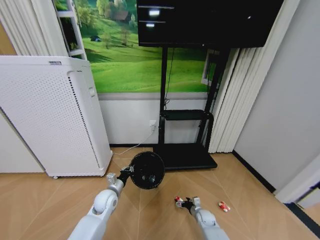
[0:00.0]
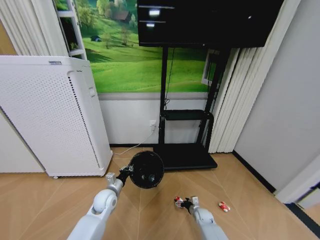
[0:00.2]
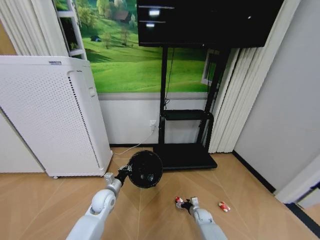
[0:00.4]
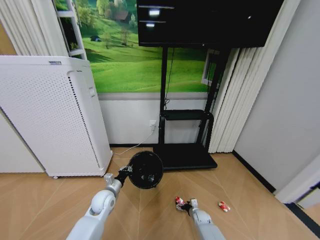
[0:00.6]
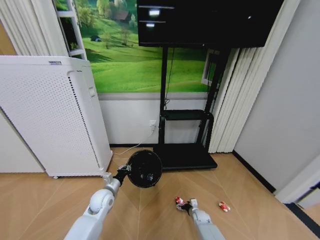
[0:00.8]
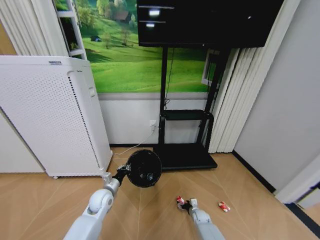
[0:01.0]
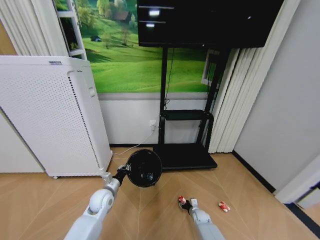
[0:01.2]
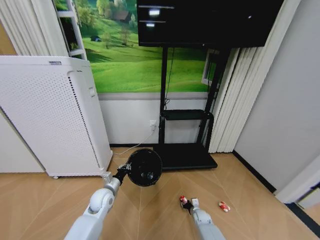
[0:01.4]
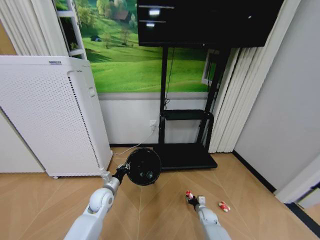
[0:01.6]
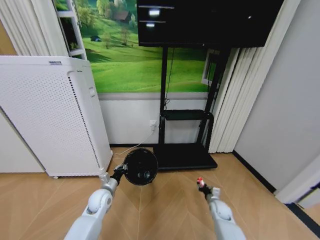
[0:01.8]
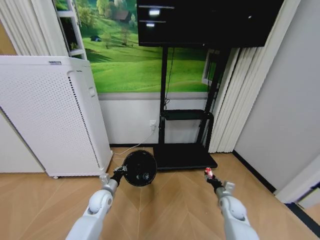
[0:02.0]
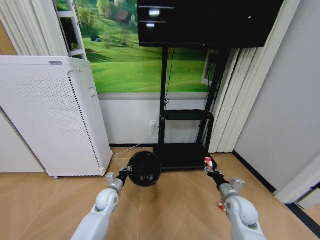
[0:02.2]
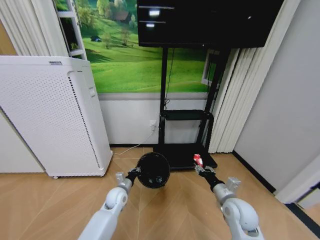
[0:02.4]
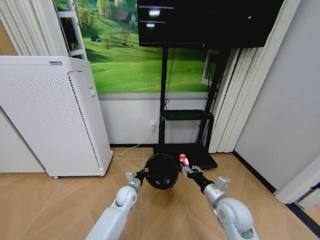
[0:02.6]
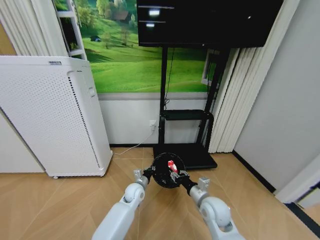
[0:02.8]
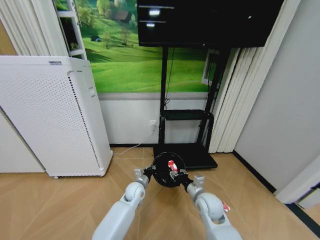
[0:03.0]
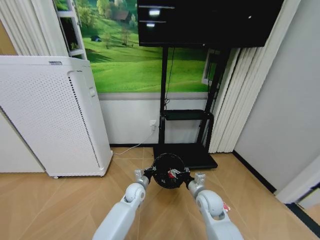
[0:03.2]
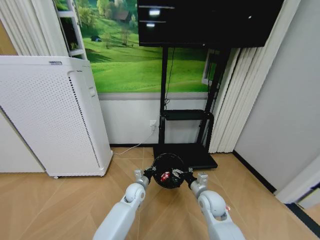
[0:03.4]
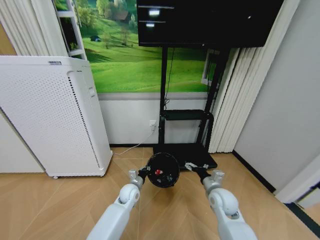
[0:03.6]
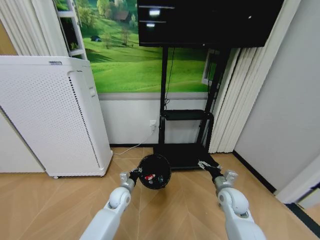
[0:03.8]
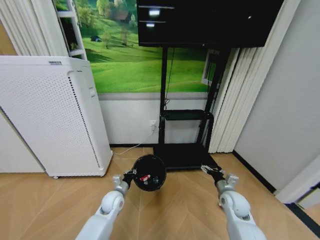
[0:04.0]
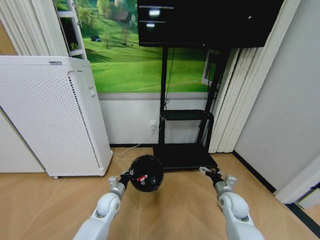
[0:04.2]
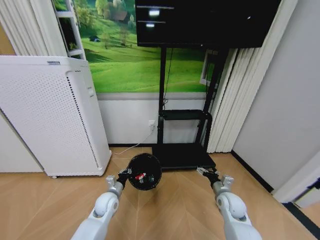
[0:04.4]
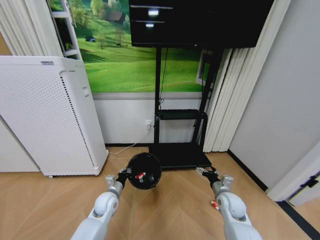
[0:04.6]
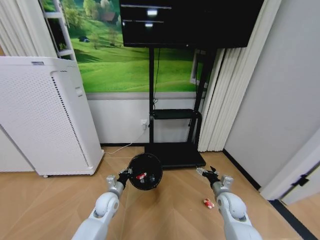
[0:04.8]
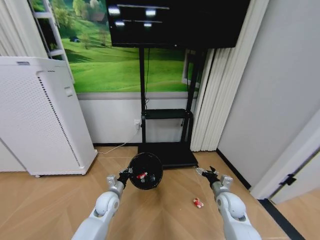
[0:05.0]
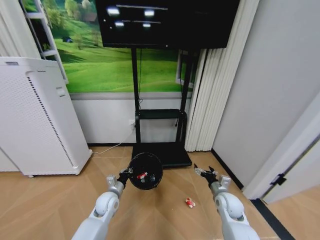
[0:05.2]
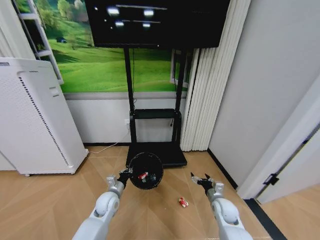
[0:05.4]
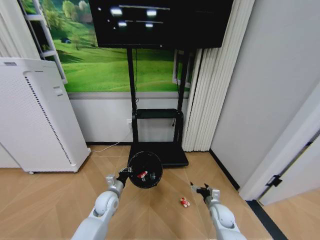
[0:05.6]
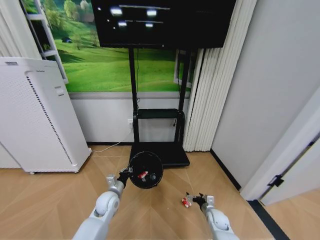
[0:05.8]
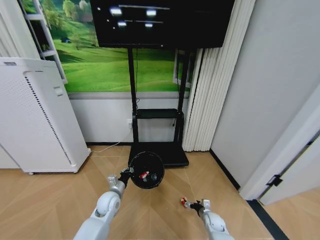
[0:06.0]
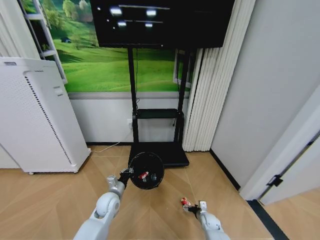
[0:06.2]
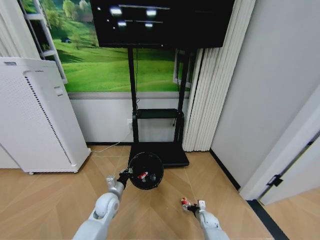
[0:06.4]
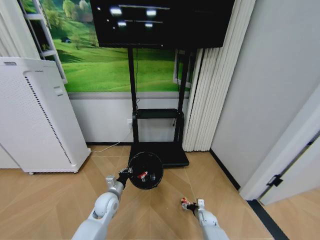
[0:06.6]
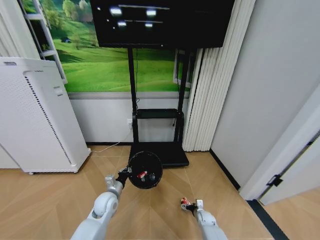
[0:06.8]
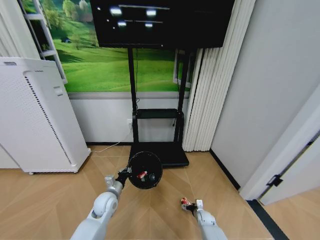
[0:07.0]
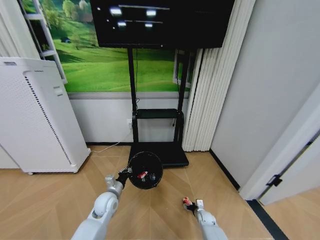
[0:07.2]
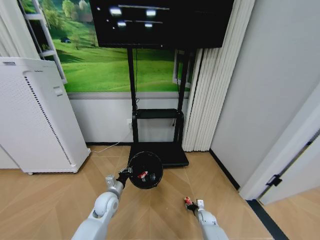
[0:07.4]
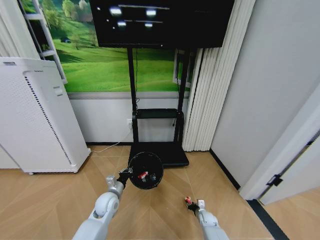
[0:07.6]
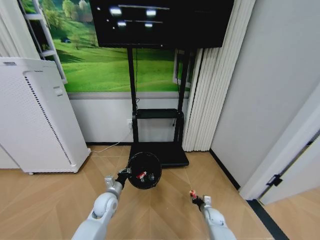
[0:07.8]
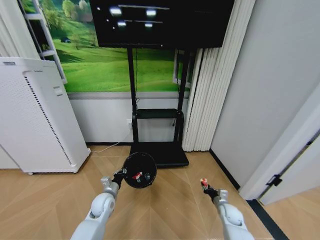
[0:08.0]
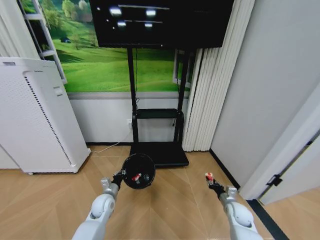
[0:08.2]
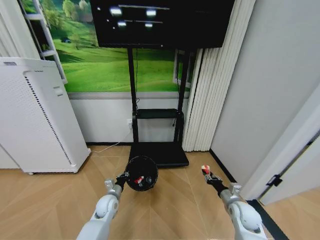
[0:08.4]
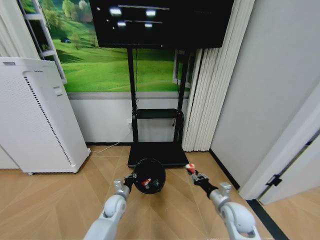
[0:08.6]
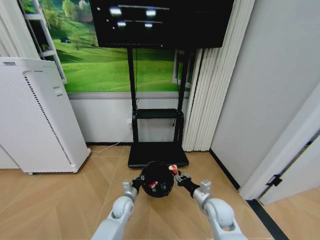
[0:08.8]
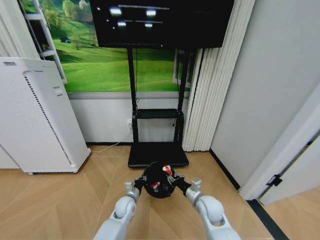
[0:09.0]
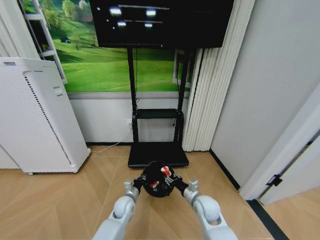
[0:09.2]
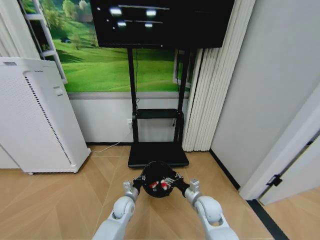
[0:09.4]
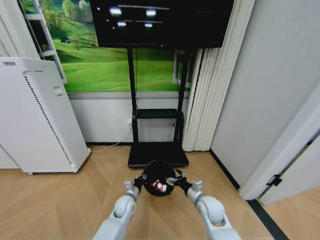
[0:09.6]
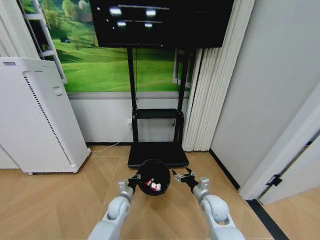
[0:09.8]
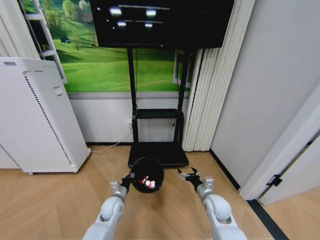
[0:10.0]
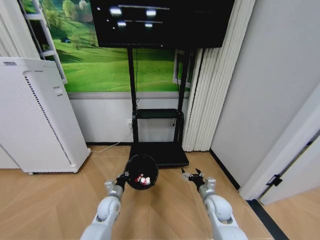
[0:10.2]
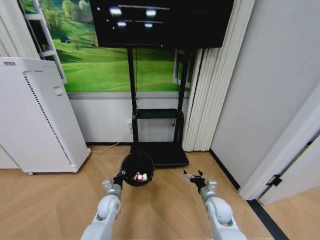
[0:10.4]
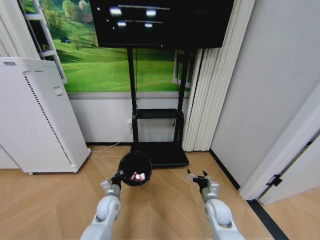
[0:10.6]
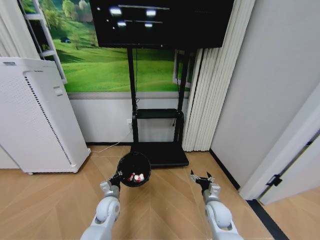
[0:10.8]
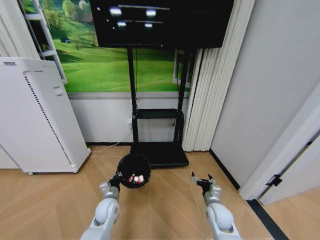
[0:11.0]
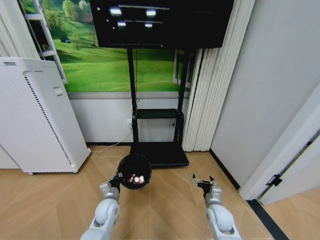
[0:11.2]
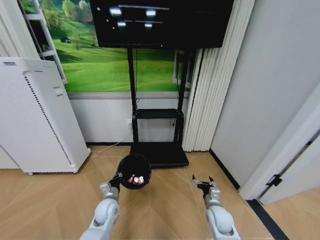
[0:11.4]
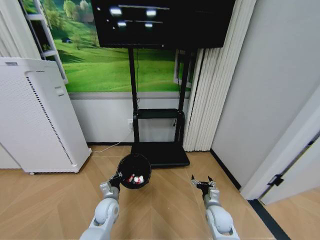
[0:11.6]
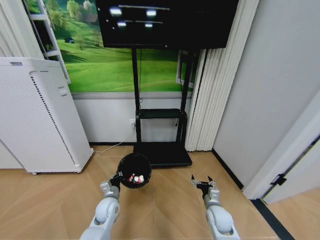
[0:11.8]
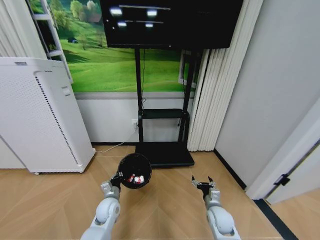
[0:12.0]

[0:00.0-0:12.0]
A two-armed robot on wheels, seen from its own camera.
Task of the whole recording: Pick up the trash bin and place the garbage on the floor into it.
0:00.0 to 0:01.6: The right gripper closes.
0:01.6 to 0:03.0: The right gripper shifts approximately 25 cm upward; the left gripper moves to the right, about 15 cm.
0:03.0 to 0:04.4: The right gripper travels to the right by approximately 10 cm, and opens. Meanwhile the left gripper travels to the left and backward by approximately 15 cm.
0:04.4 to 0:06.0: The right gripper heads downward, covering about 20 cm.
0:06.0 to 0:07.6: The right gripper shifts by approximately 5 cm, and closes.
0:07.6 to 0:09.0: The right gripper is displaced upward by about 25 cm; the left gripper is displaced to the right and downward by approximately 10 cm.
0:09.0 to 0:10.4: The right gripper goes roughly 5 cm to the right, and opens. The left gripper heads to the left, covering about 5 cm.
0:10.4 to 0:12.0: The grippers stay close to where they were, moving slightly.

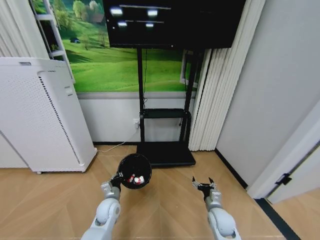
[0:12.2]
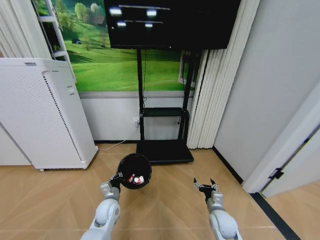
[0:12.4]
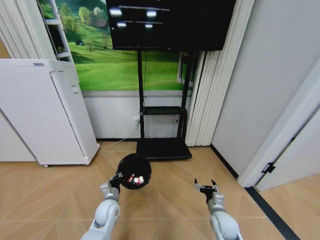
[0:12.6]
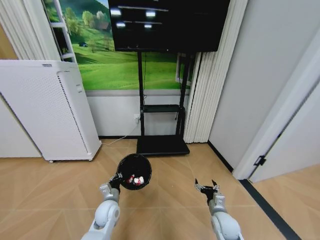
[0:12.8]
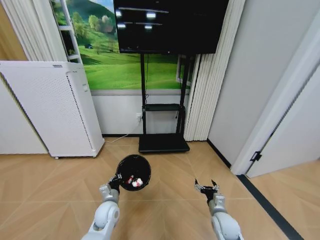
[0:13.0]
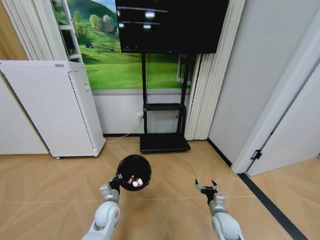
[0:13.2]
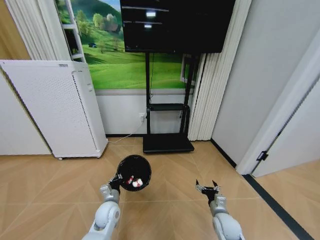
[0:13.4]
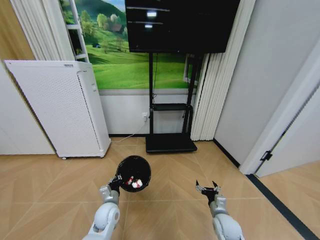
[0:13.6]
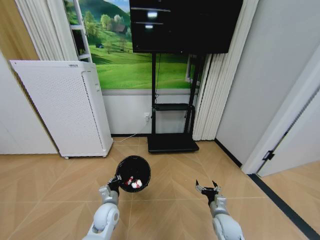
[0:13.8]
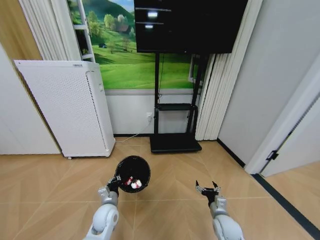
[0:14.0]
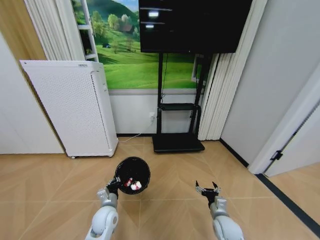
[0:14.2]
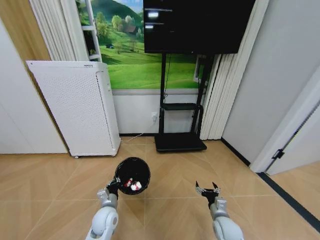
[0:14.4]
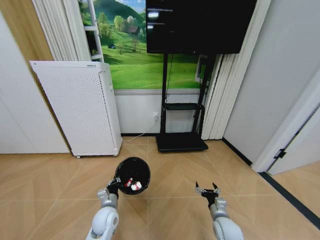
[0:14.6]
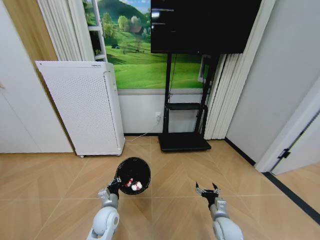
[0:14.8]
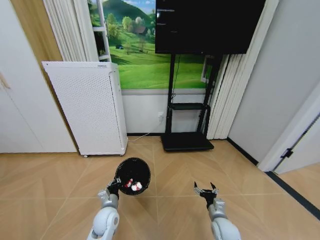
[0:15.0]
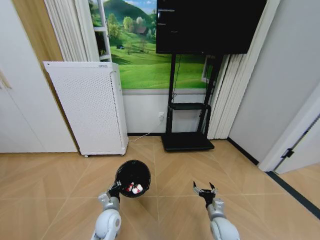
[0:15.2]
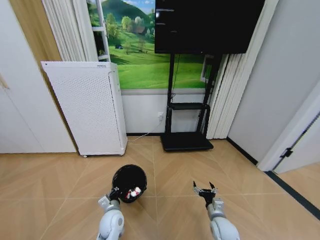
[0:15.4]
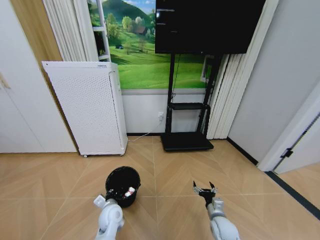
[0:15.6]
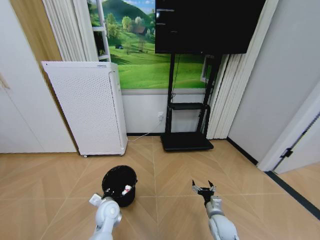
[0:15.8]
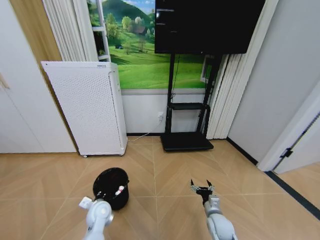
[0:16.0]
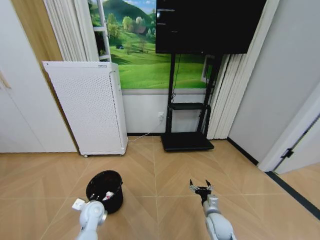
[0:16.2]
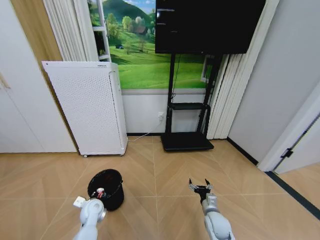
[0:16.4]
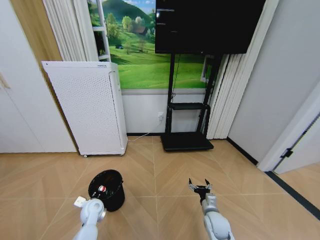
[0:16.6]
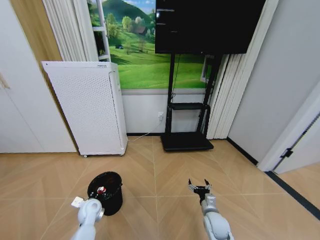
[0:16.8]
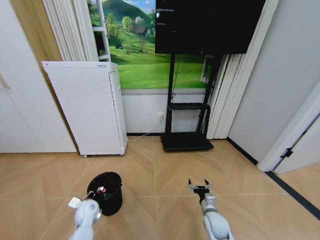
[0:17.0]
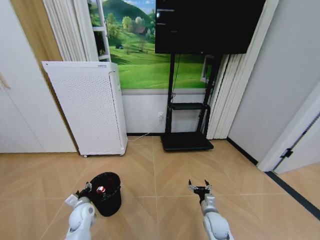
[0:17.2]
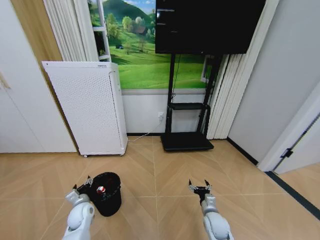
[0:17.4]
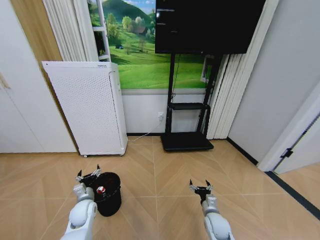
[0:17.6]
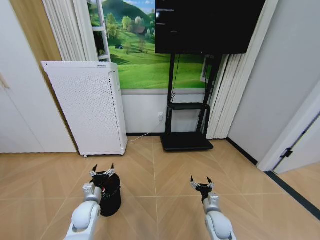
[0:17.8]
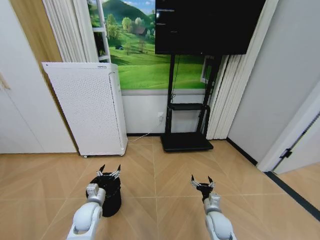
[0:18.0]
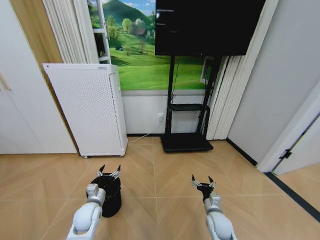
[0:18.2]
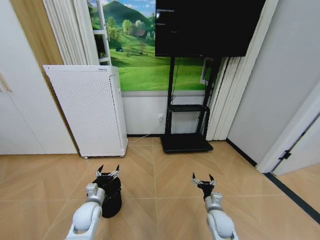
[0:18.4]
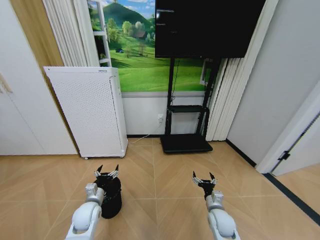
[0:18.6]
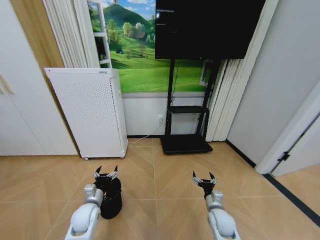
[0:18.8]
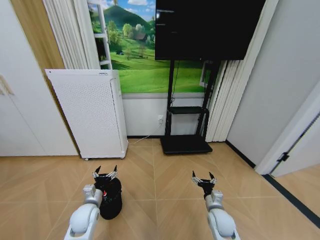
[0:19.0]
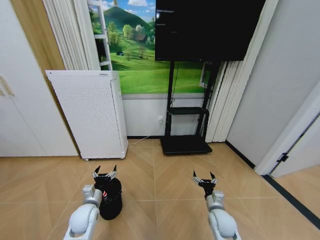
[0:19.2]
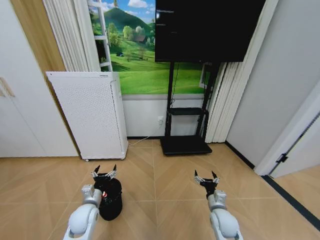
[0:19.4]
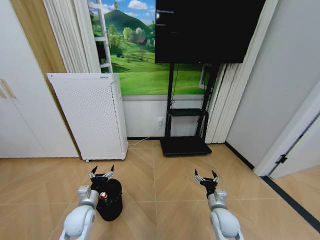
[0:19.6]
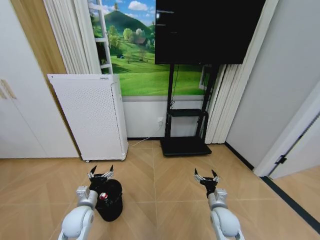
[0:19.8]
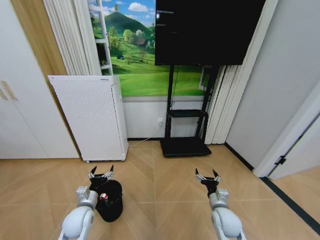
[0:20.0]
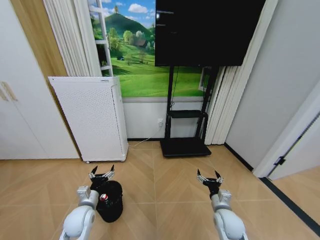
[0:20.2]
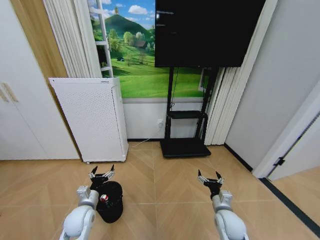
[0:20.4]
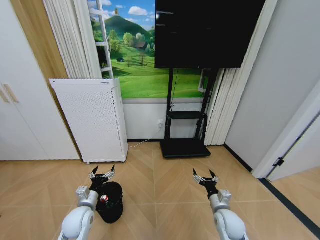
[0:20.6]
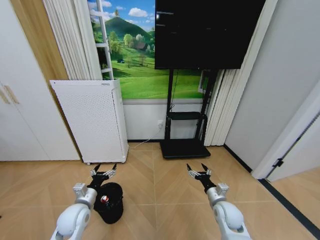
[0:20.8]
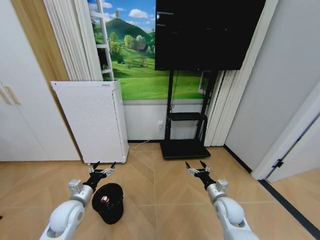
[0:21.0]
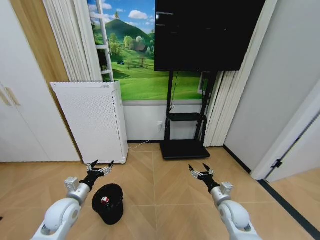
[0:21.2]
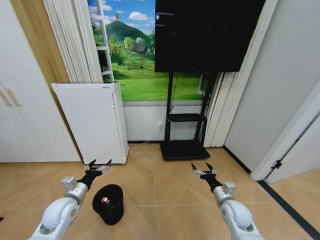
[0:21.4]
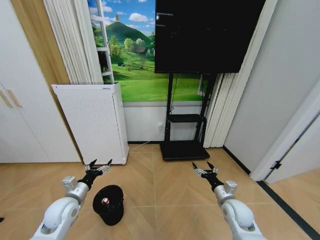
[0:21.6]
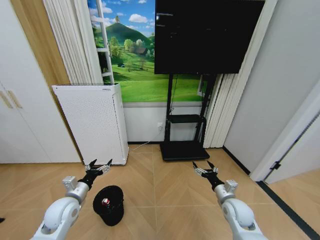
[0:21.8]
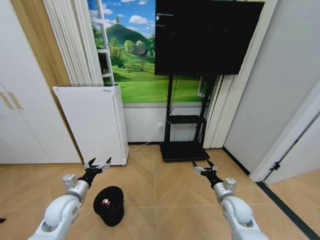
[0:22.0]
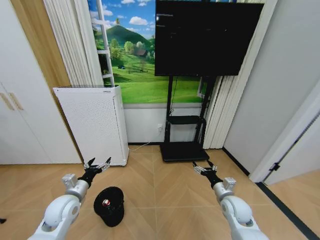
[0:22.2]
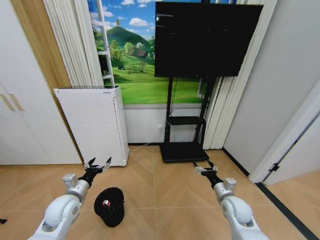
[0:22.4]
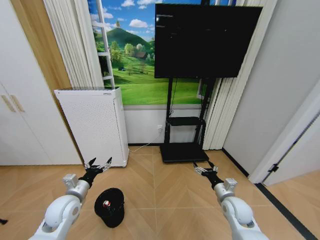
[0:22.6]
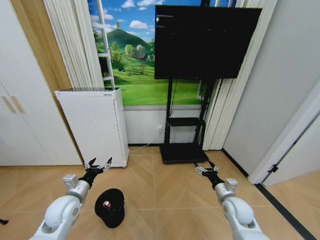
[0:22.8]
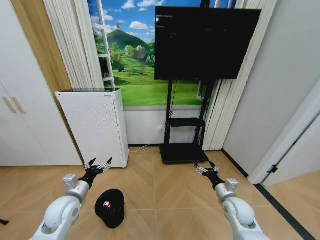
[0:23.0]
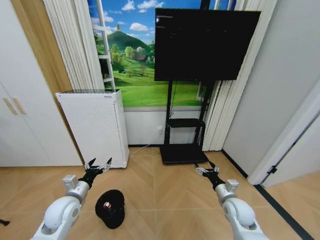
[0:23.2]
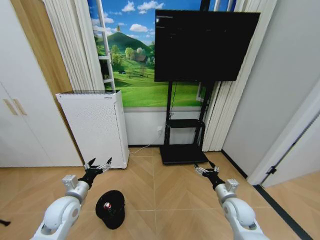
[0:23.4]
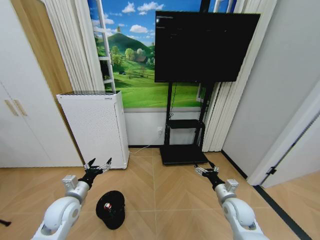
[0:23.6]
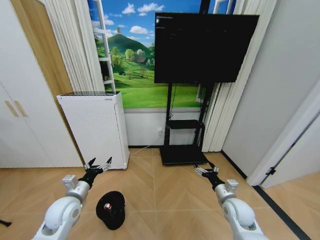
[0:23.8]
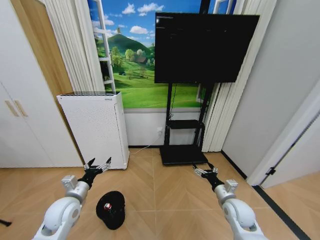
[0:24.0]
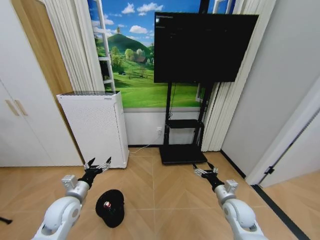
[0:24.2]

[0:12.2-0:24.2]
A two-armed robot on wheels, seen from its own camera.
Task of the whole recording: Pick up the trash bin and place the garbage on the floor into it.
0:15.2 to 0:16.6: The left gripper goes roughly 10 cm to the left and forward.
0:16.6 to 0:18.2: The left gripper shifts about 5 cm upward, and opens up.
0:18.2 to 0:19.8: The grippers move only a little.
0:19.8 to 0:21.2: The right gripper shifts by roughly 5 cm. Meanwhile the left gripper goes roughly 5 cm upward.
0:21.2 to 0:22.6: There are only small adjustments of the grippers.
0:22.6 to 0:24.2: The two grippers keep their place.
